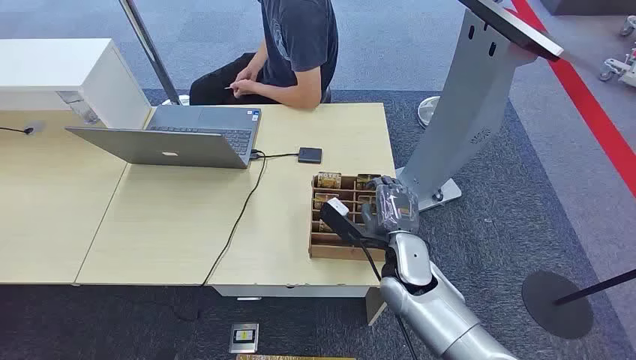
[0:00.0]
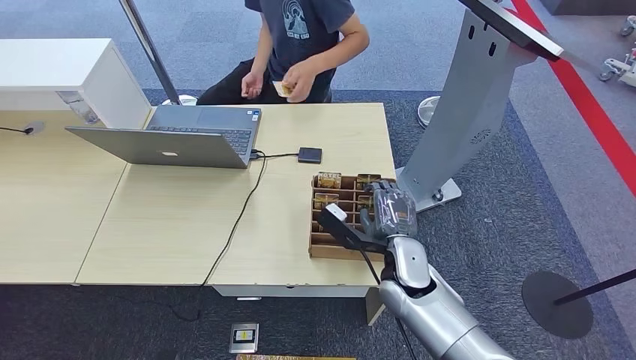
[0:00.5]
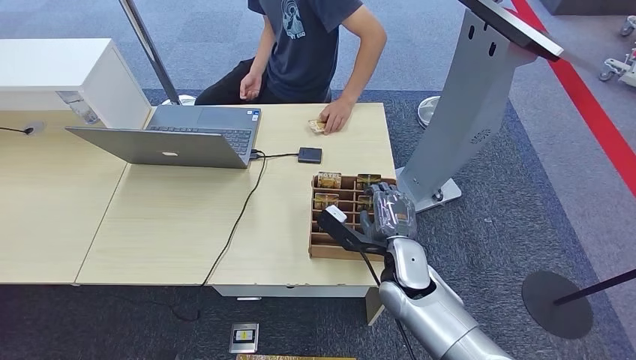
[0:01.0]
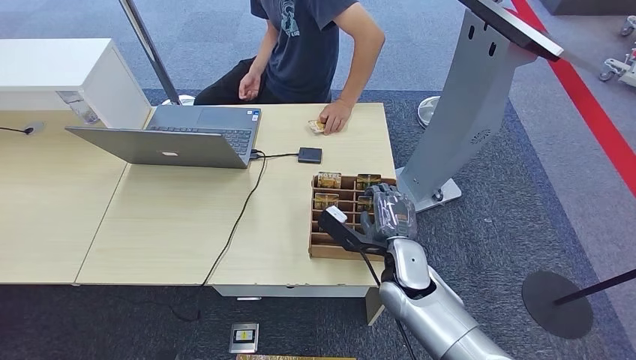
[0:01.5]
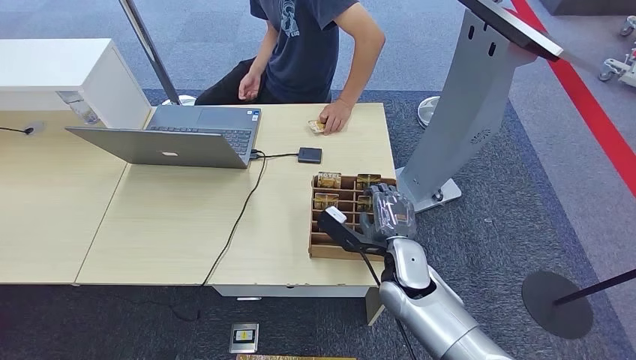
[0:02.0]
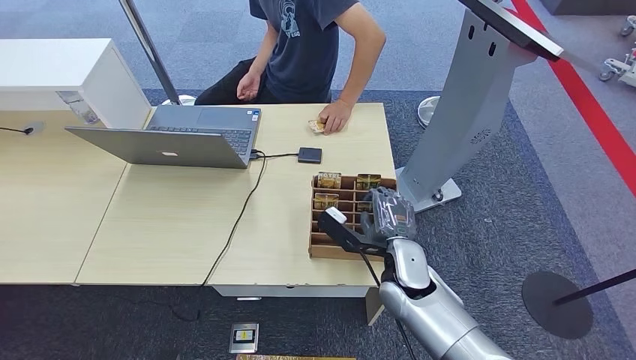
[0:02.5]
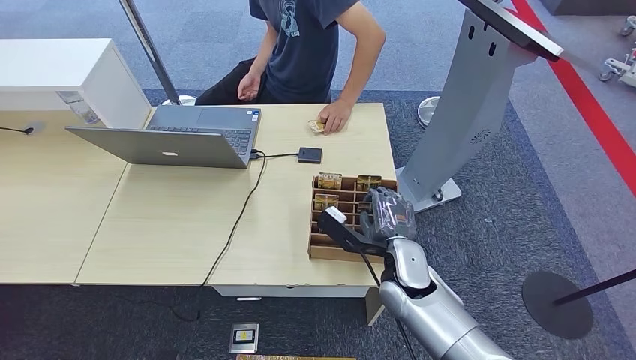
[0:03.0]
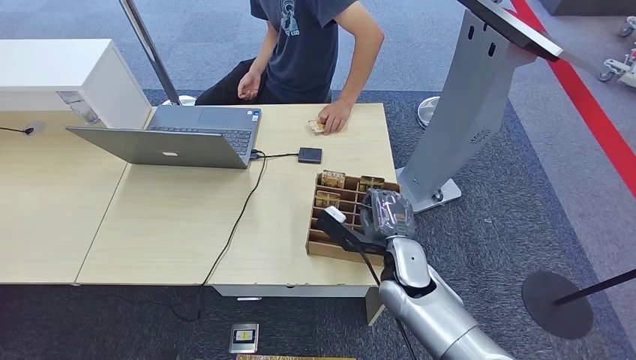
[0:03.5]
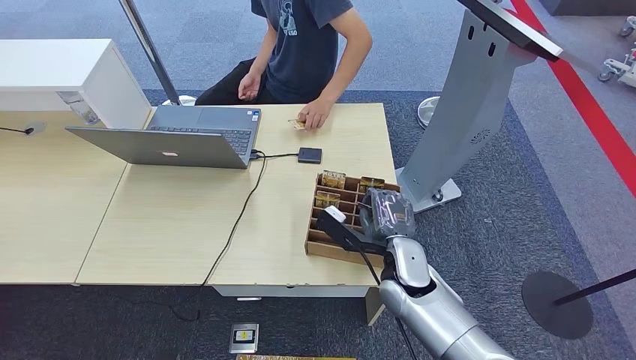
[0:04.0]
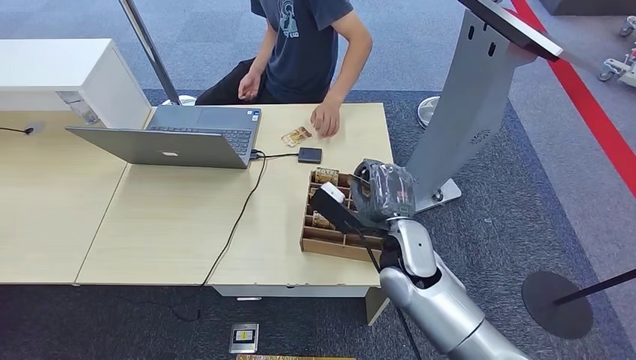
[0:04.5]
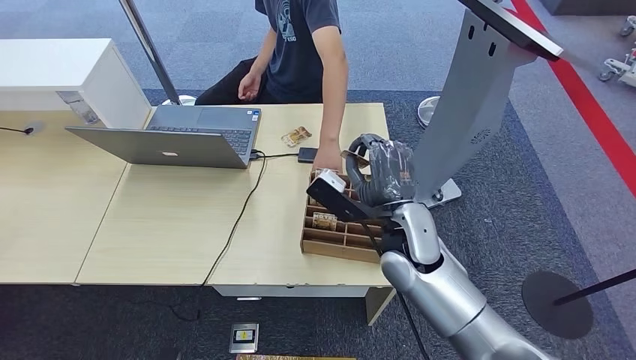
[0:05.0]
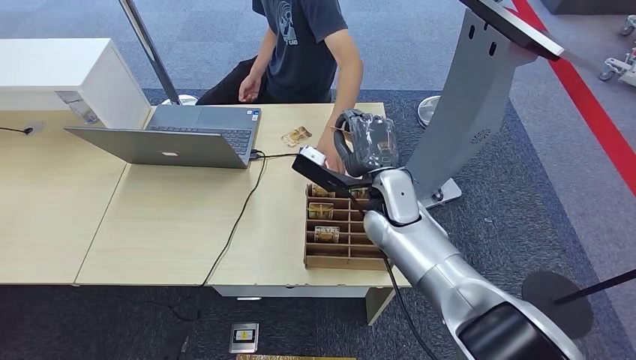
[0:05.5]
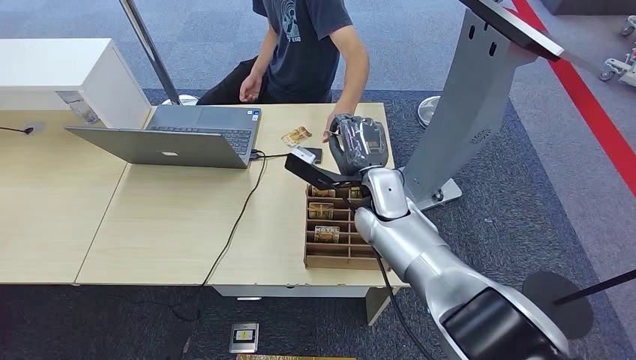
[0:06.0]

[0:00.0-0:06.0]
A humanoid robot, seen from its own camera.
Step, 0:00.0 to 0:05.0: Pick up the key card from the card box.
Step, 0:05.5 to 0:06.0: Hand the key card to the target.
0:02.0 to 0:04.0: Both hands stay put.
0:04.0 to 0:06.0: The right hand moves forward and upward, approximately 15 cm.
